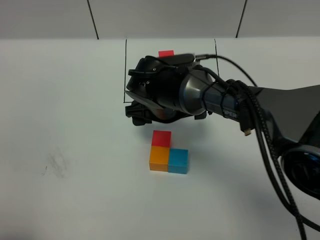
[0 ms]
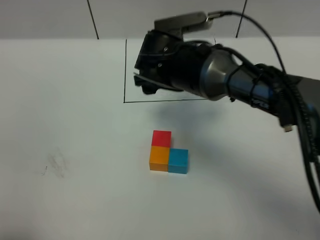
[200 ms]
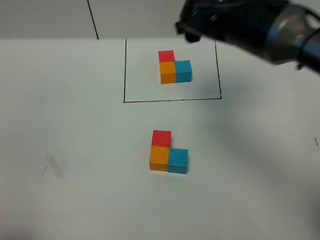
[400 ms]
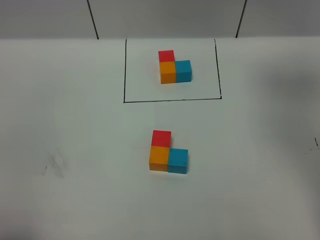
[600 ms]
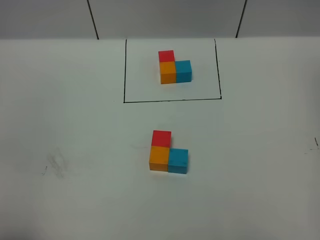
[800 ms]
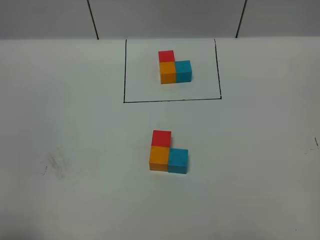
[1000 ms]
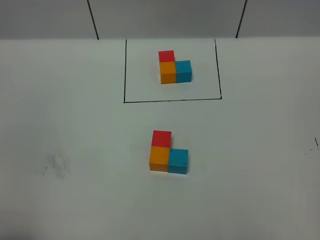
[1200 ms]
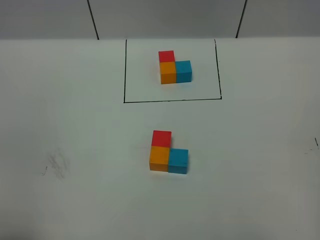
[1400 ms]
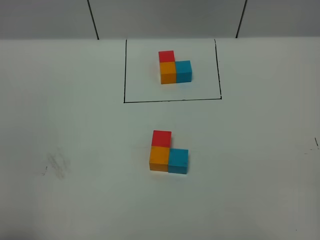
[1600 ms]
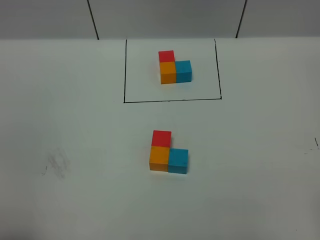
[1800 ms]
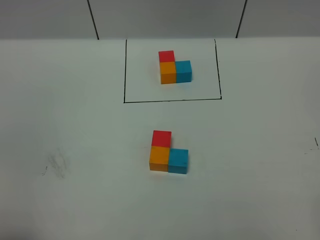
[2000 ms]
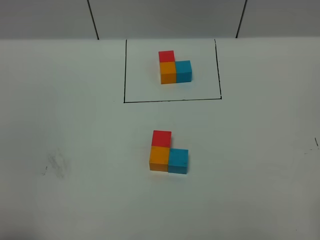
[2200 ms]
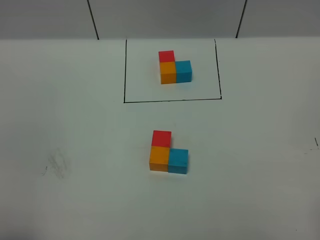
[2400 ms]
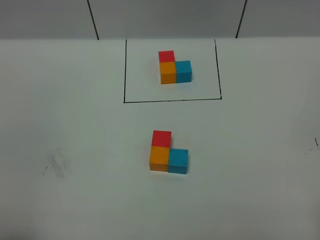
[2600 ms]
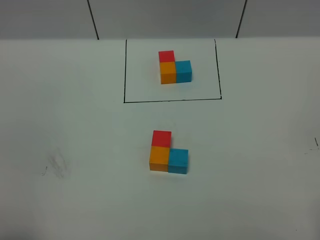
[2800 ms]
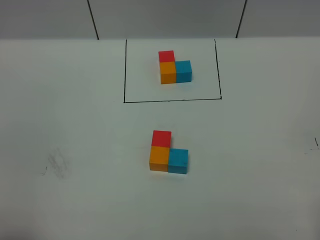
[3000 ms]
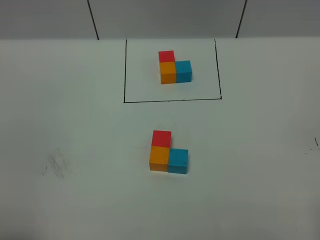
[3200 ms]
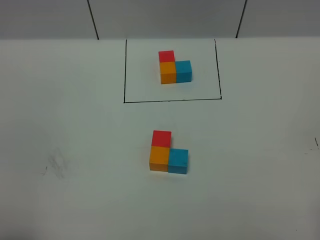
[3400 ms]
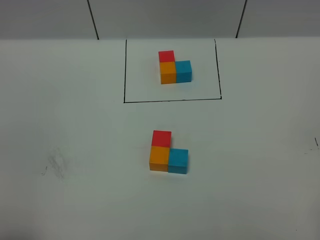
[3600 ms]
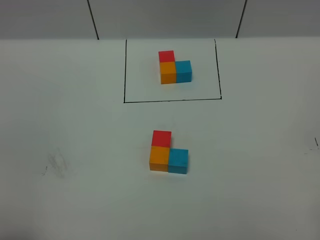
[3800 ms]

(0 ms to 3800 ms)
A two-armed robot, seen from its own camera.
Task of the whole recording: According to the building block template in front, assemble the scattered blocks together.
0 ms - 1200 ms: The right gripper shifts about 50 cm to the right, upward and backward.
2600 ms - 3800 ms: Both grippers stay put.
